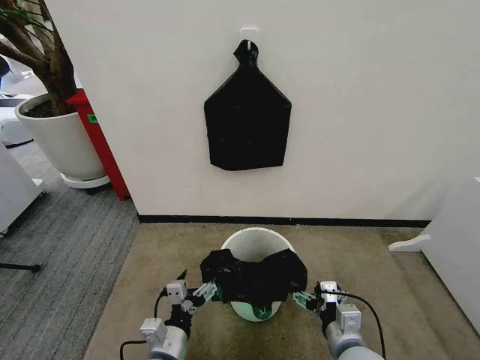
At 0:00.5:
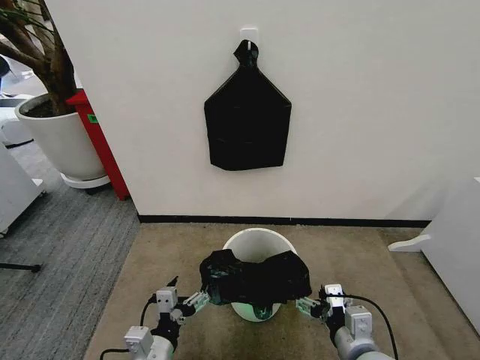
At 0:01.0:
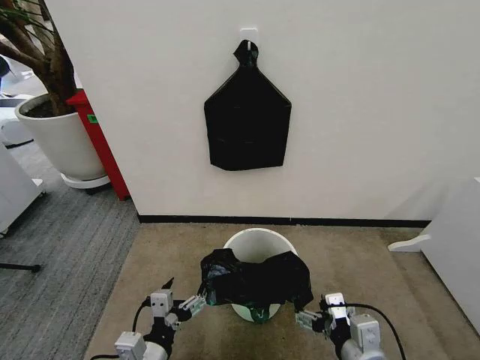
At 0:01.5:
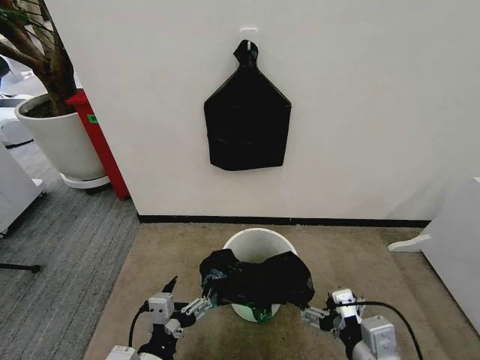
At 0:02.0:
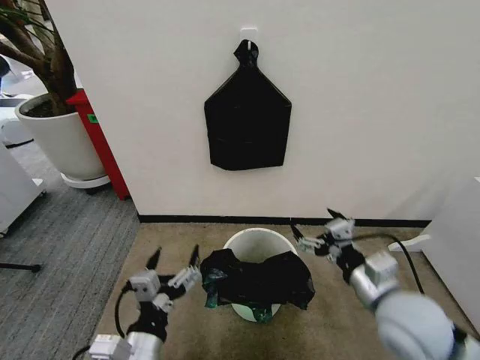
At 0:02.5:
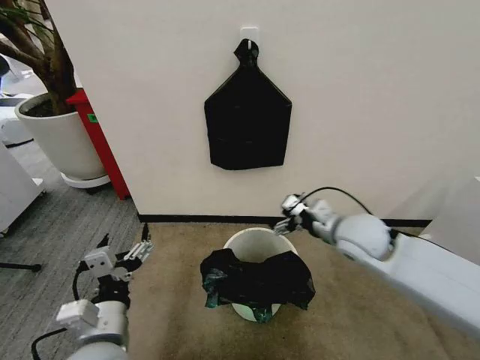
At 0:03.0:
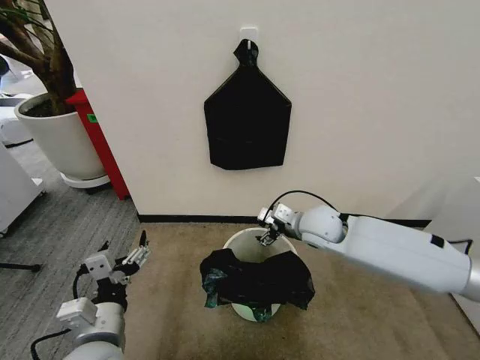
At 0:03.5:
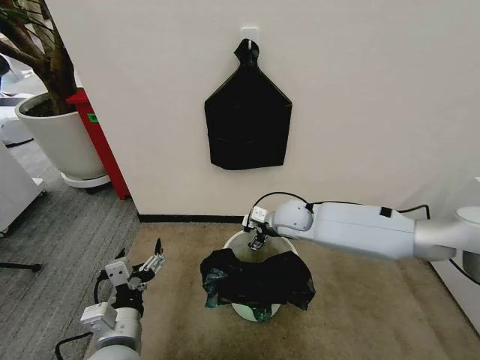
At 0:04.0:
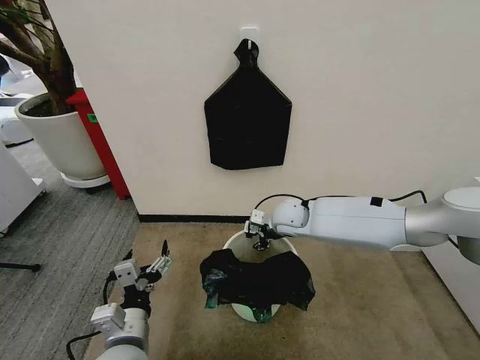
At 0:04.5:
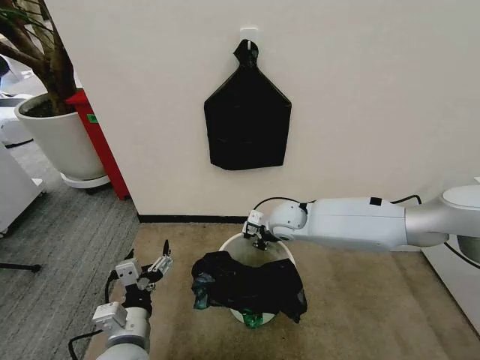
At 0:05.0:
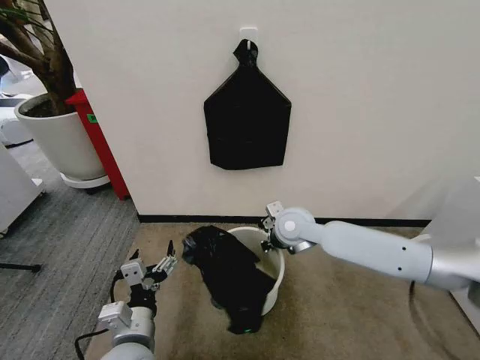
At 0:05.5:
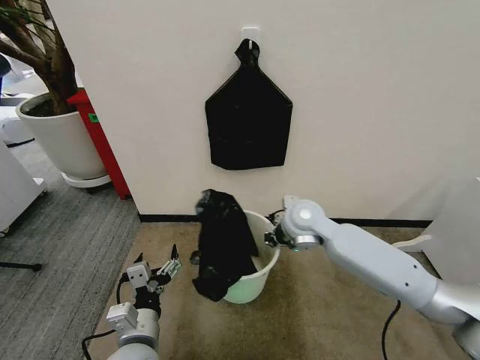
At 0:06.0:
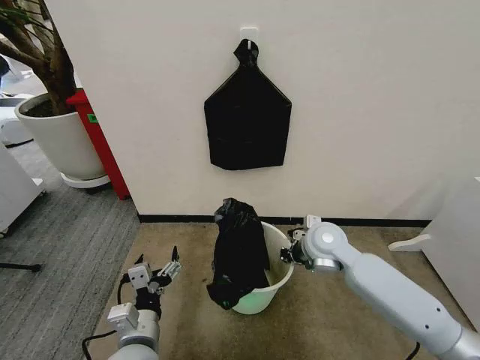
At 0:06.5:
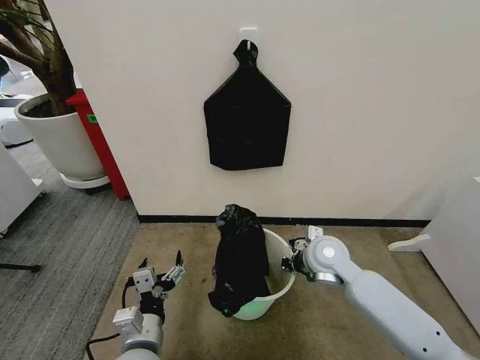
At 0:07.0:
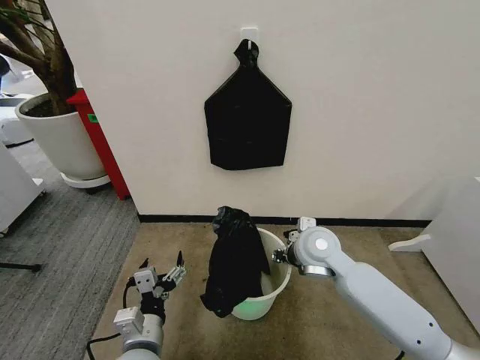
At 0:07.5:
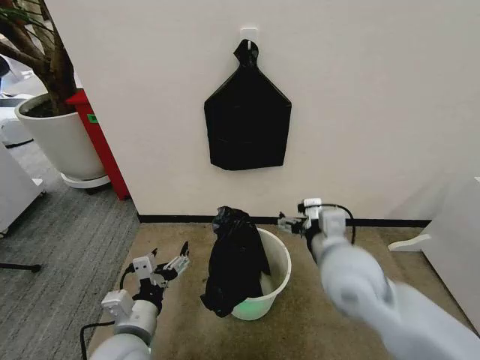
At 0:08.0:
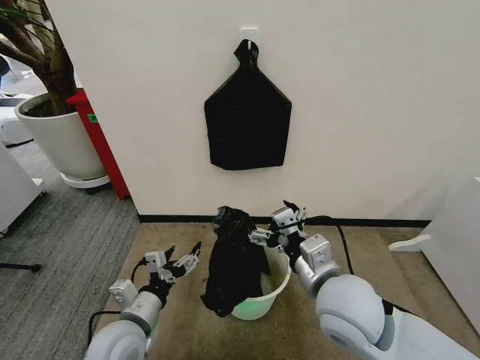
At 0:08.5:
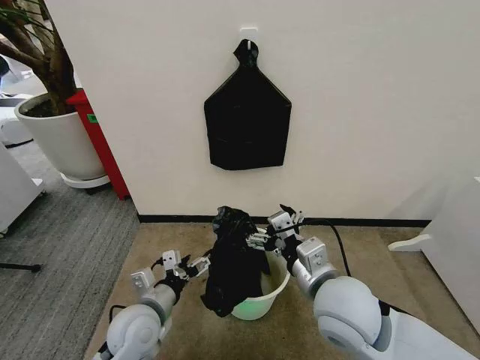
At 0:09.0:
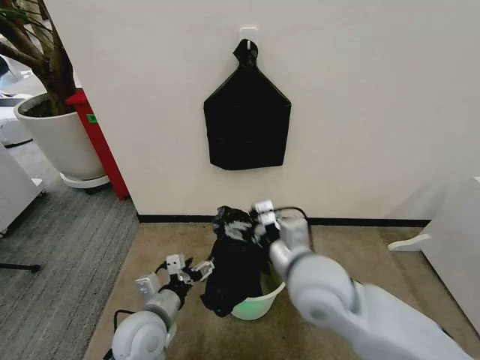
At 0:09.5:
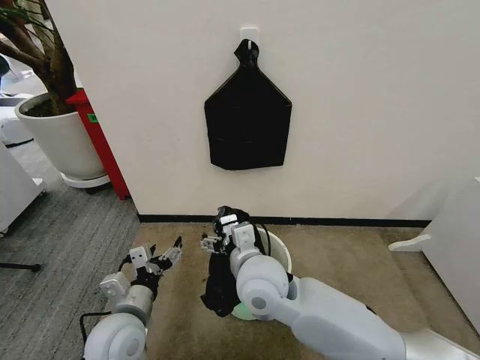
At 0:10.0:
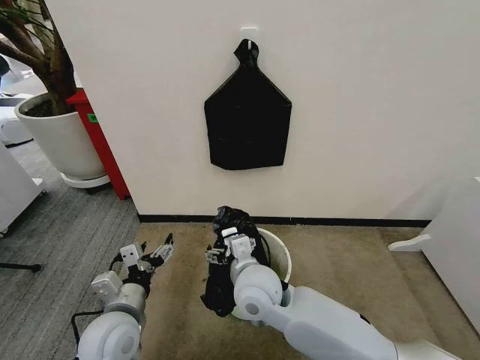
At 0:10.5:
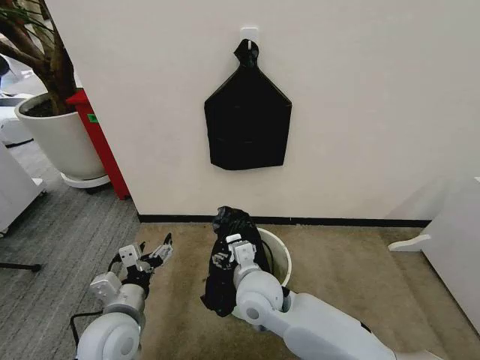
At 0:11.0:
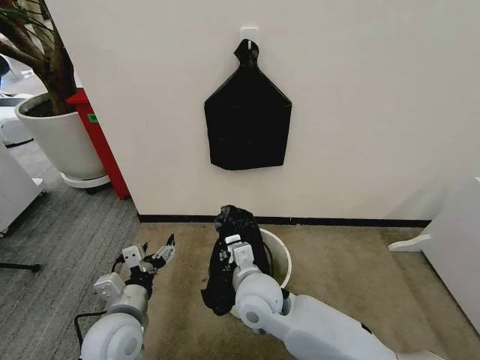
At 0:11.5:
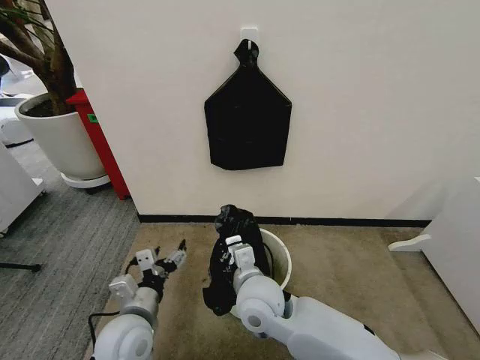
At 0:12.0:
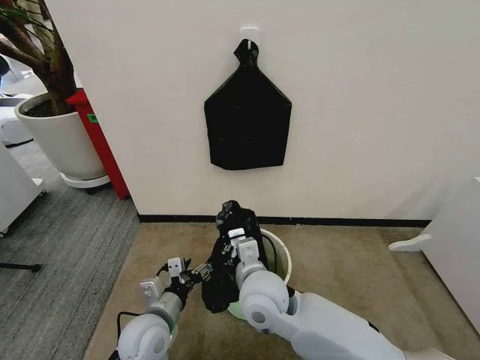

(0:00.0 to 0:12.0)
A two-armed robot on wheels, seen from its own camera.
Task of the whole recording: Place the garbage bag over the trash bin.
0:00.0 - 0:02.0: The grippers both shift upward by approximately 10 cm.
0:02.0 - 0:04.0: The left gripper goes about 5 cm forward, while the right gripper is displaced forward and to the left by about 30 cm, and closes its fingers.
0:04.0 - 0:06.0: The right gripper travels backward and to the right by roughly 10 cm, and closes.
0:06.0 - 0:08.0: The left gripper ends up some 5 cm from where it was. Meanwhile the right gripper goes about 20 cm backward and upward, and opens.
0:08.0 - 0:10.0: The right gripper heads to the left, downward and forward, covering approximately 15 cm.
0:10.0 - 0:12.0: The left gripper travels downward by some 5 cm, while the right gripper closes its fingers.

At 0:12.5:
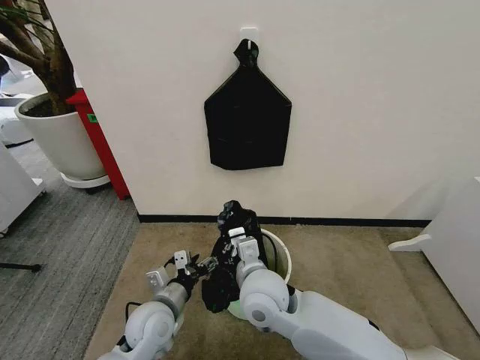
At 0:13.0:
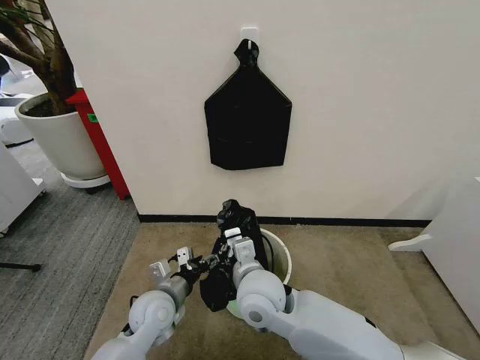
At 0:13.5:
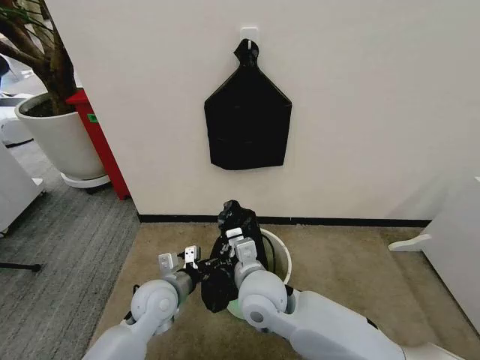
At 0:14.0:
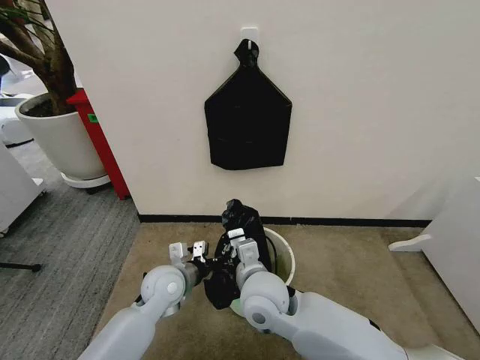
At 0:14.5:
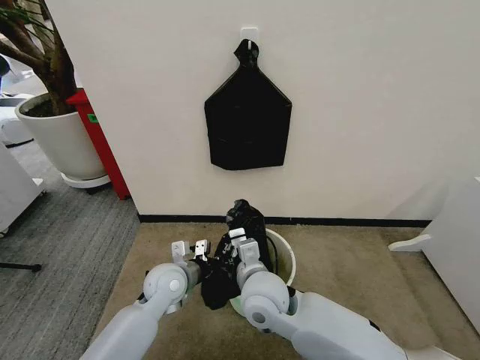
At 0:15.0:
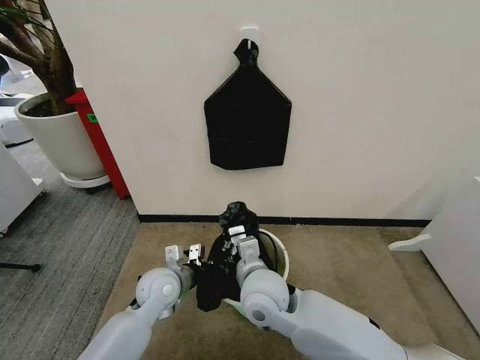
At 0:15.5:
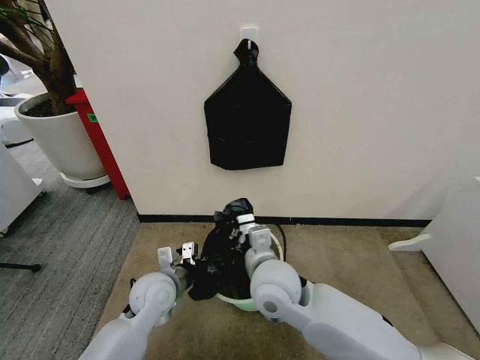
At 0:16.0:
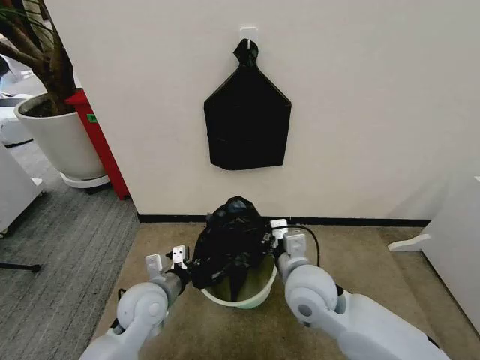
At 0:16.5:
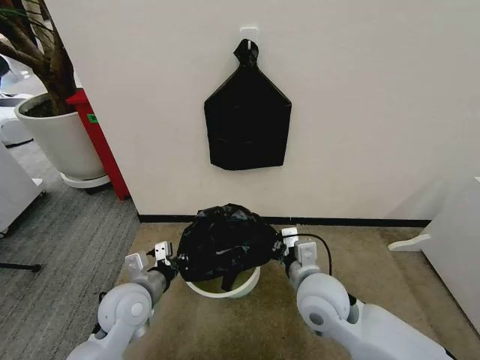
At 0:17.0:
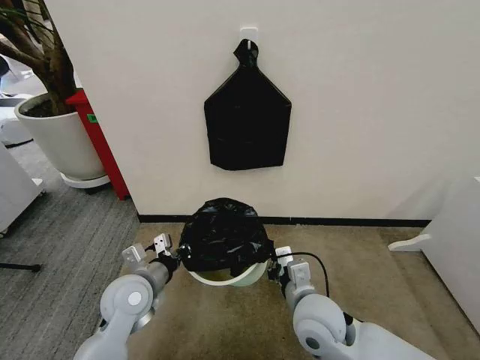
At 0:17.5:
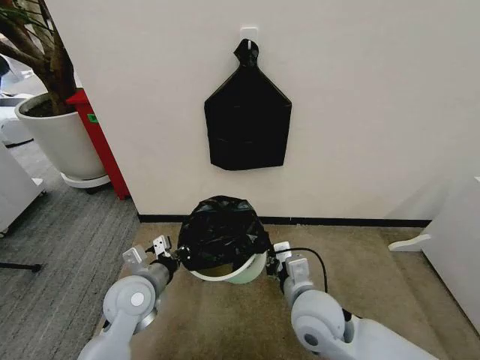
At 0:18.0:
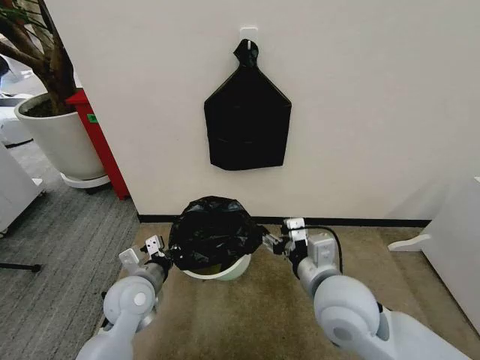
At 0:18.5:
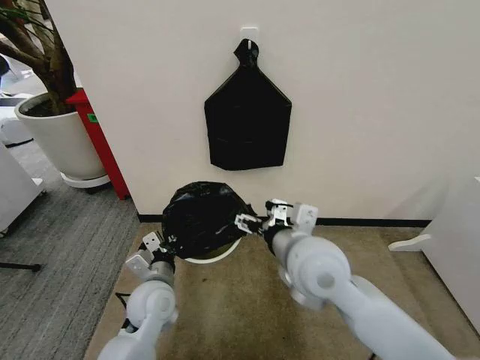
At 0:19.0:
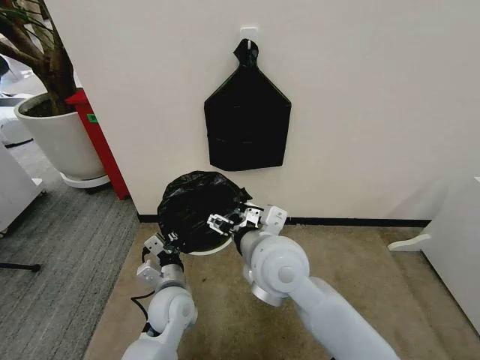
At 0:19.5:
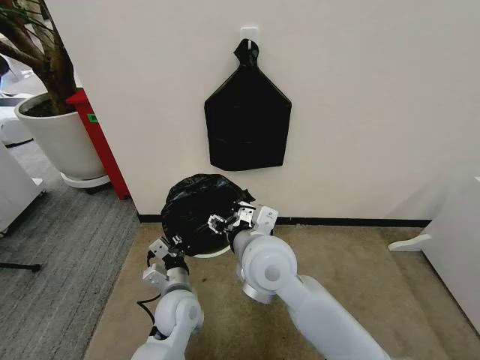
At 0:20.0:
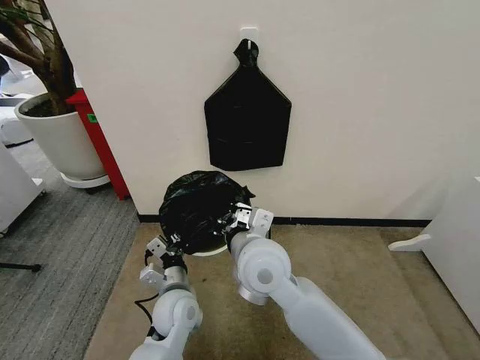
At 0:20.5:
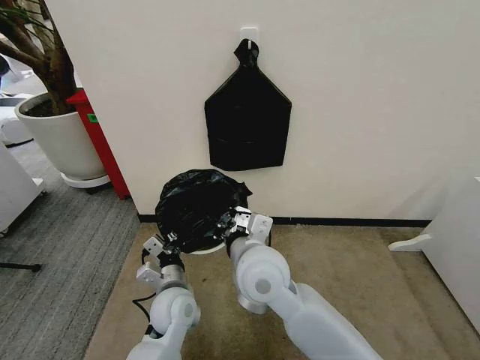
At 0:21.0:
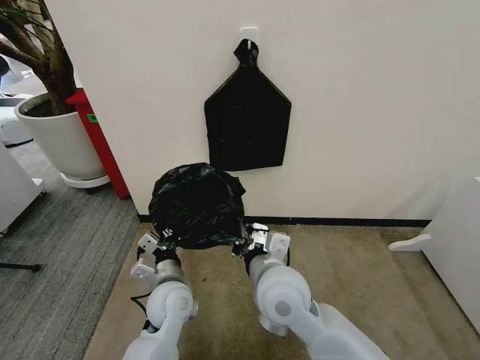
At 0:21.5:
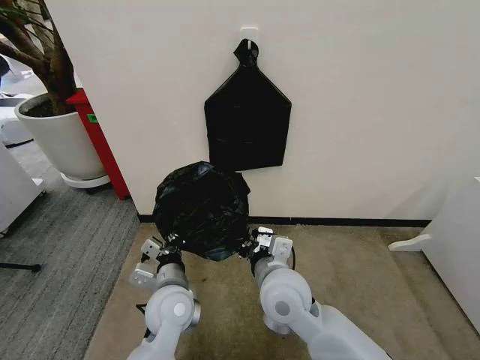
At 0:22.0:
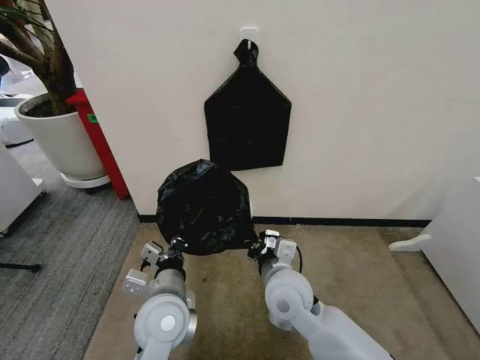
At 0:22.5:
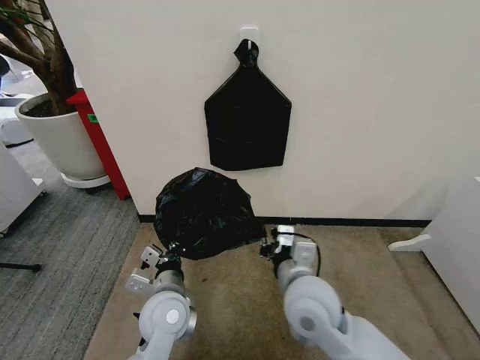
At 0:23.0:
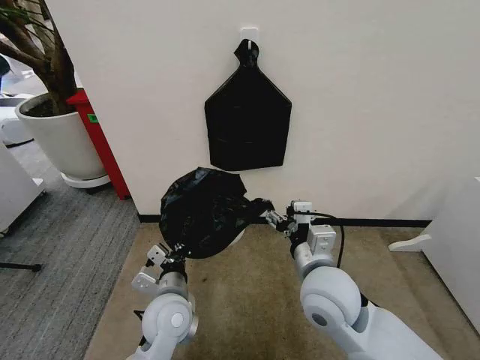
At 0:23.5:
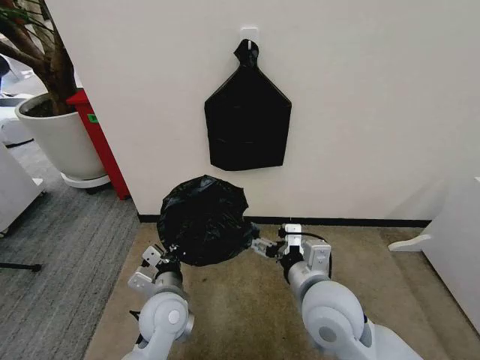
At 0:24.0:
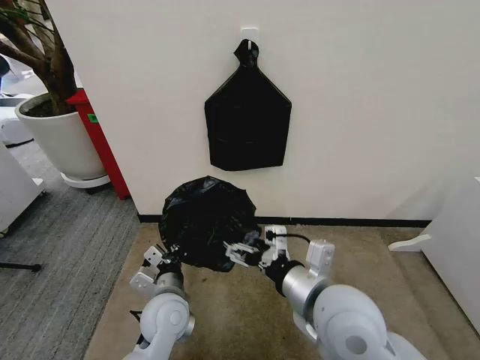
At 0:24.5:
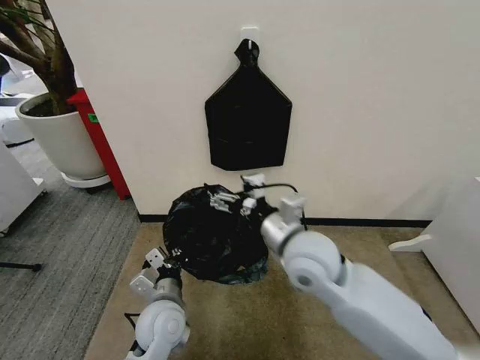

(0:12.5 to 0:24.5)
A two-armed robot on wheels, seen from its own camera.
Task of the whole recording: Place the garbage bag over the trash bin.
0:12.5 - 0:14.5: The left gripper goes some 10 cm forward, and closes its fingers.
0:14.5 - 0:16.5: The right gripper goes roughly 10 cm to the right; the left gripper heads to the left and backward, covering approximately 10 cm.
0:16.5 - 0:18.5: The right gripper goes approximately 10 cm upward, and opens. The left gripper changes place by about 5 cm.
0:18.5 - 0:20.5: The right gripper shifts approximately 10 cm to the left, and closes up.
0:20.5 - 0:22.5: The left gripper travels upward by approximately 5 cm. Meanwhile the right gripper goes some 10 cm to the right and downward.
0:22.5 - 0:24.5: The right gripper moves upward, roughly 5 cm, and opens its fingers.

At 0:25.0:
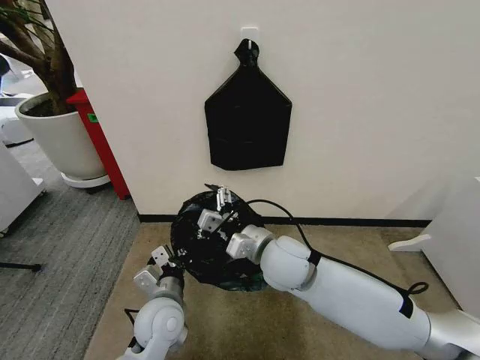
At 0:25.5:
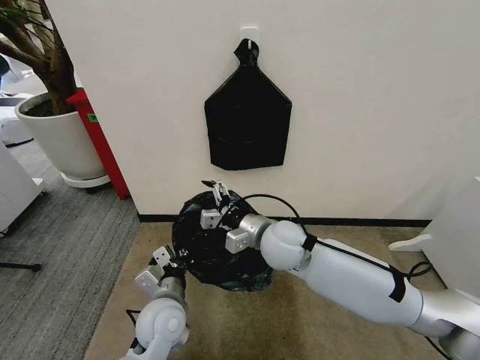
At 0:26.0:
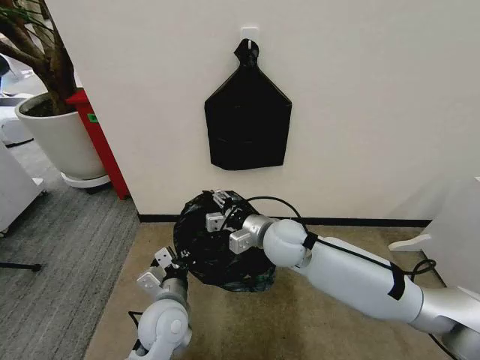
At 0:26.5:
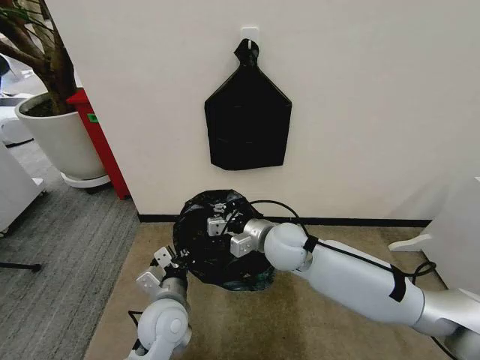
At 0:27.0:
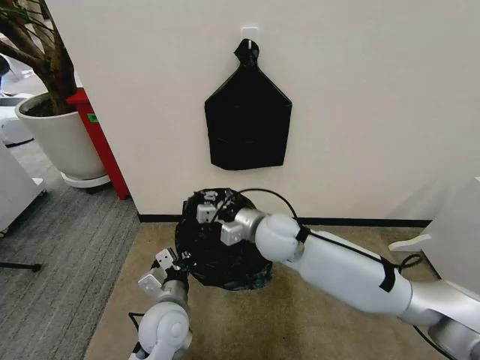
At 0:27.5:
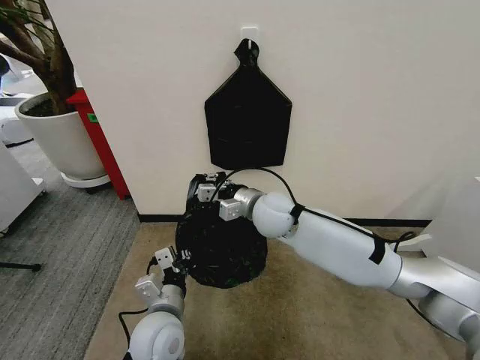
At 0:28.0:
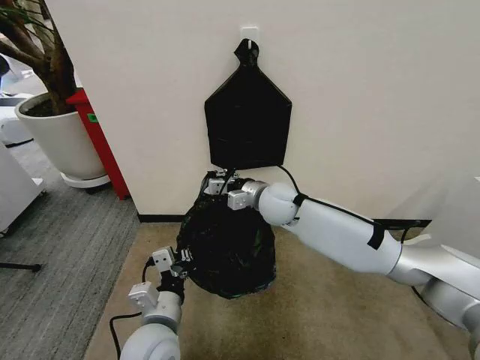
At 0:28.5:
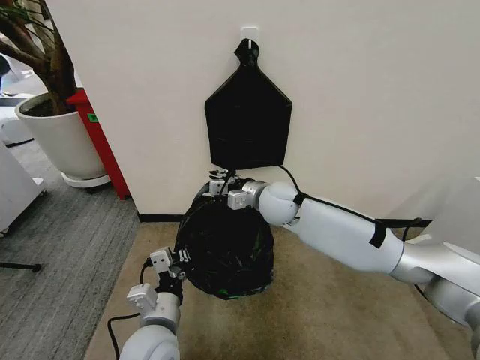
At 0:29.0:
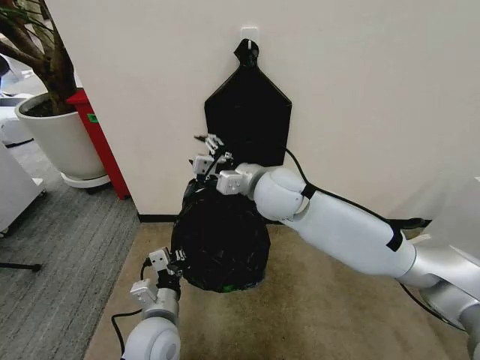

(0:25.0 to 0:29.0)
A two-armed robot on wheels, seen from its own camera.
Task of the whole recording: Place the garbage bag over the trash bin.
0:25.0 - 0:27.0: The right gripper moves forward, approximately 5 cm, and closes.
0:27.0 - 0:29.0: The right gripper shifts some 10 cm upward, and opens its fingers.
